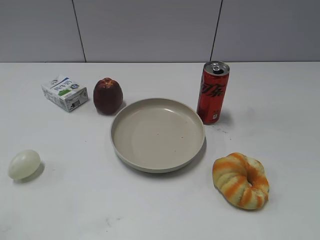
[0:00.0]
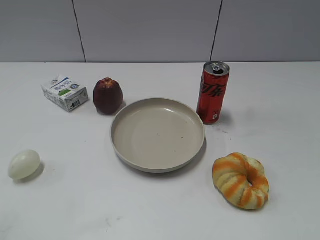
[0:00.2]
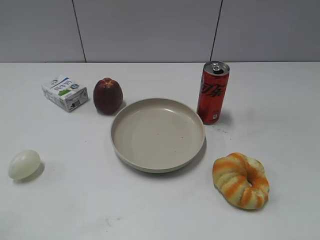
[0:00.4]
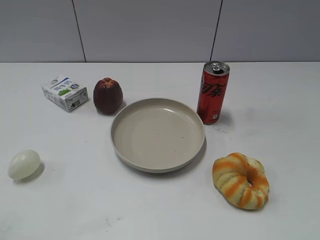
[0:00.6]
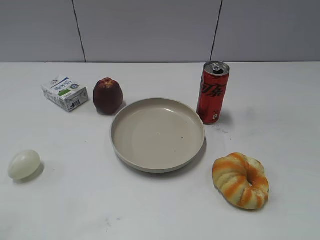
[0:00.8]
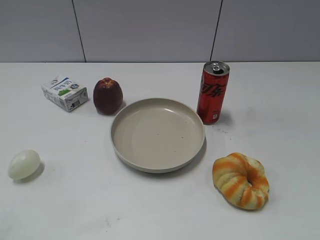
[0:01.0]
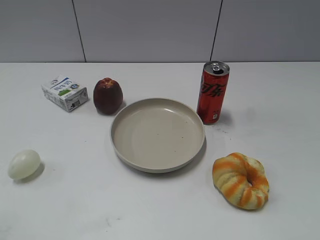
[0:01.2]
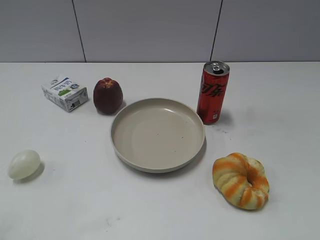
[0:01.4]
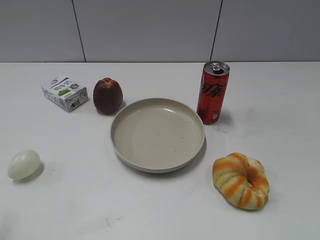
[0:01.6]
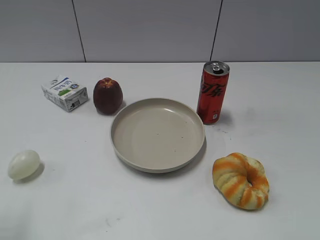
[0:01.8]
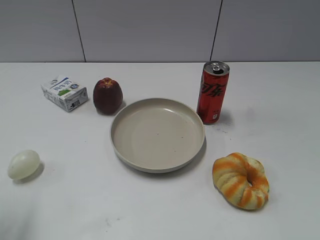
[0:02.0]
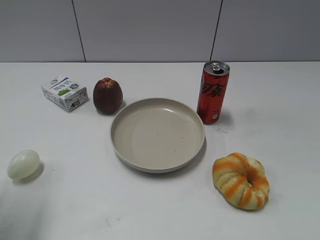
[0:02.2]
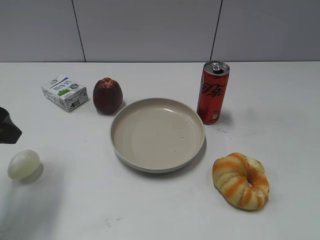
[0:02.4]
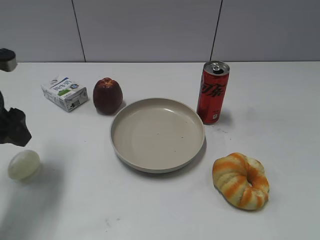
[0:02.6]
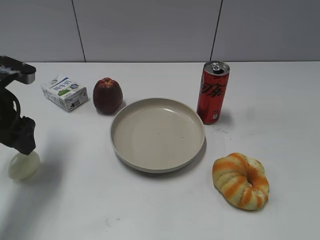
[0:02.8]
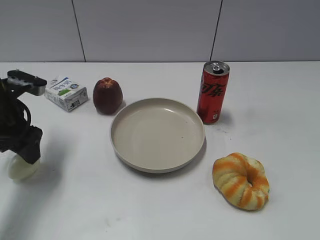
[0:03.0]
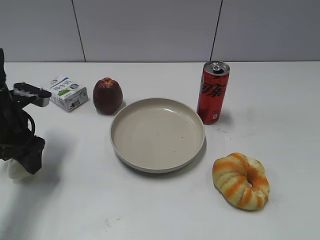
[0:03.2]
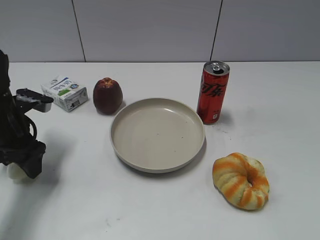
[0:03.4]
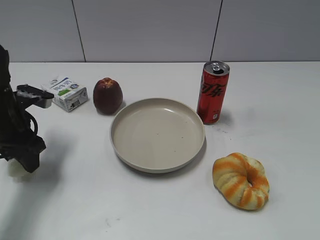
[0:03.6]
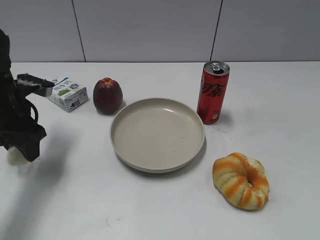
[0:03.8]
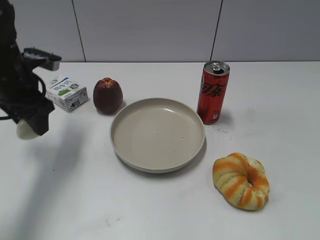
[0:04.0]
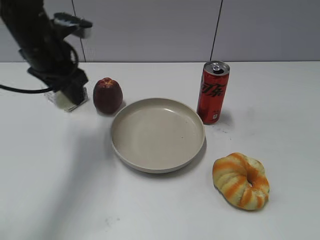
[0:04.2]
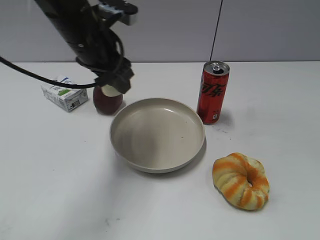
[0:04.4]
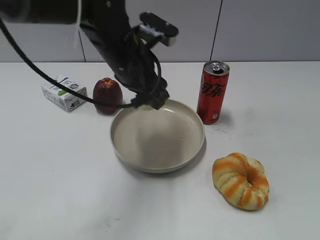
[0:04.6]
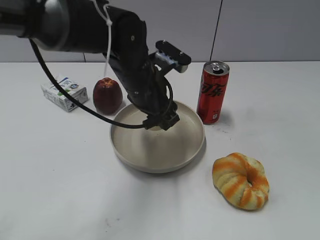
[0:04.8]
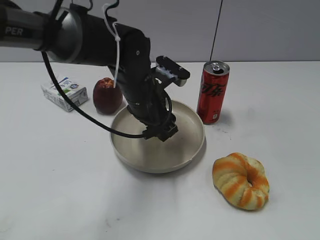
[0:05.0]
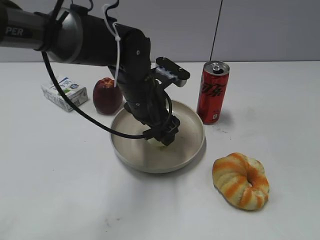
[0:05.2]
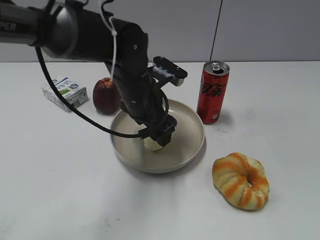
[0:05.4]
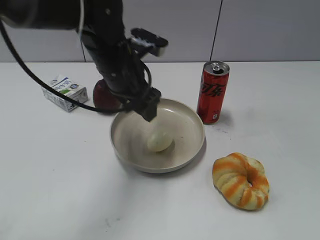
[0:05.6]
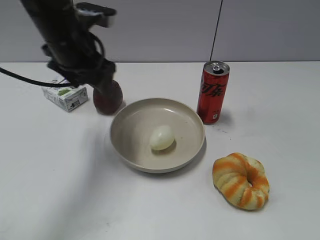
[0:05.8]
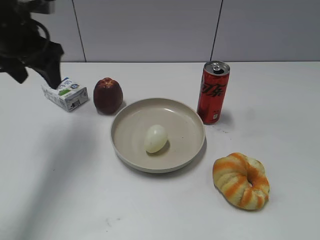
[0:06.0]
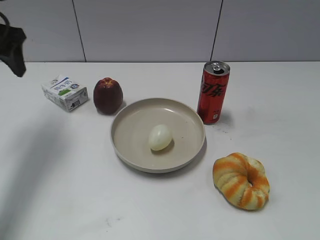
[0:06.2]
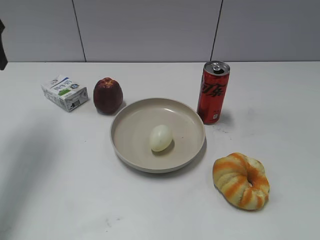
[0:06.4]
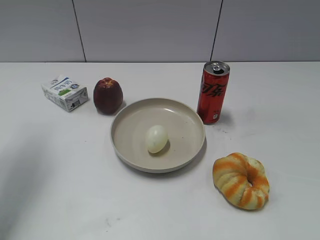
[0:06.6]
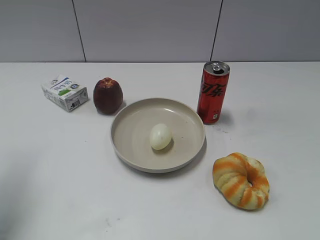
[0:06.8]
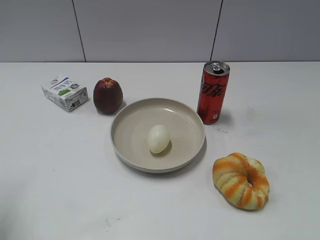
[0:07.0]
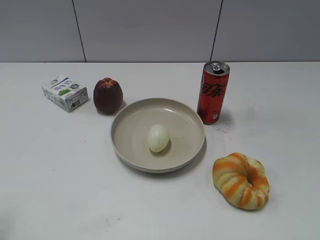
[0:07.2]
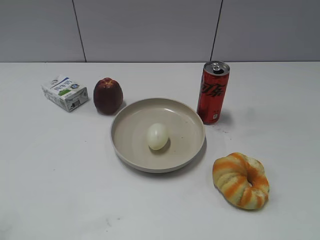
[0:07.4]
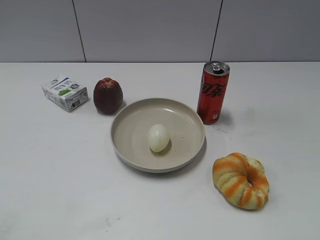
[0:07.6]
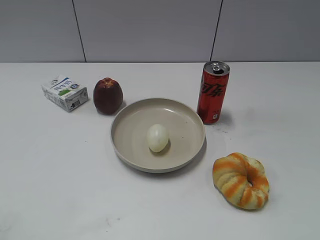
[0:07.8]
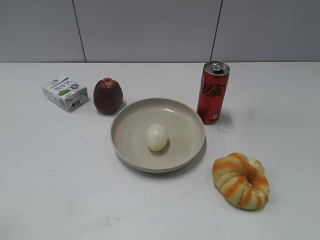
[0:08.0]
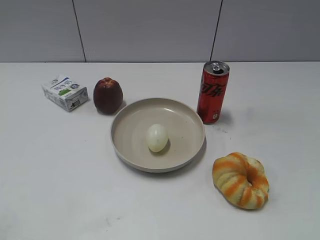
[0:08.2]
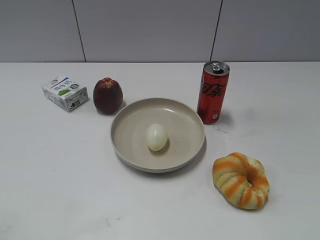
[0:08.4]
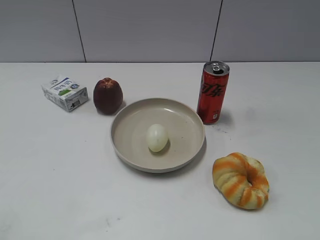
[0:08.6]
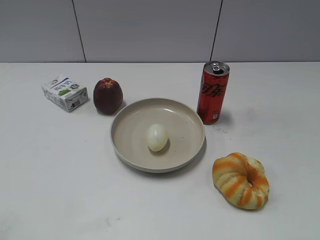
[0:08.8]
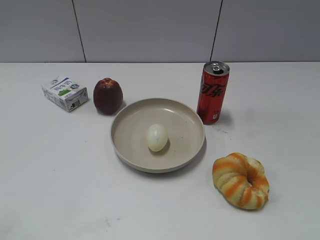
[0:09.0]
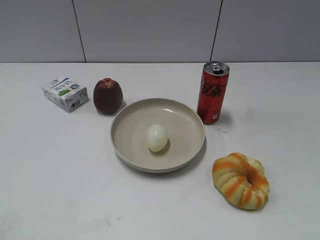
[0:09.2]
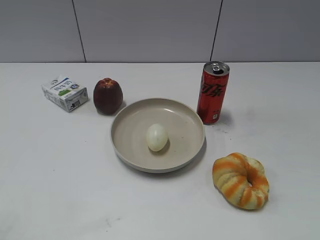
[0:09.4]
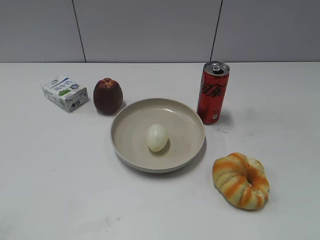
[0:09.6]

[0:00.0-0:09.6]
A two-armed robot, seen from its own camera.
0:01.6 to 0:03.2: The left gripper goes some 30 cm forward and downward, and opens its fingers.
0:03.2 to 0:04.8: The left gripper is displaced to the right by some 20 cm, and closes its fingers.
0:04.8 to 0:06.4: The left gripper is displaced to the left and upward by approximately 30 cm, and opens.
0:06.4 to 0:08.0: The left gripper shifts approximately 35 cm backward.
